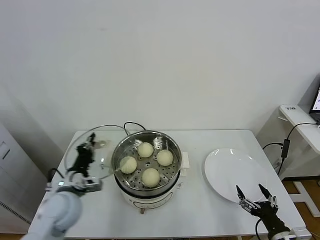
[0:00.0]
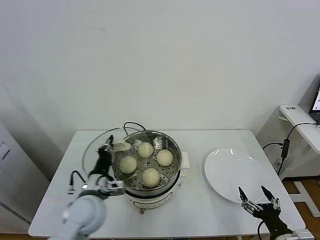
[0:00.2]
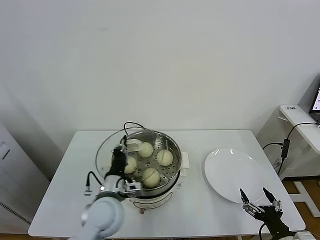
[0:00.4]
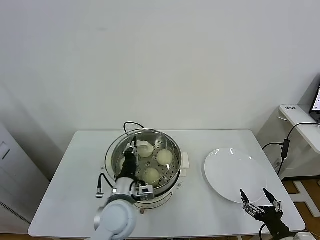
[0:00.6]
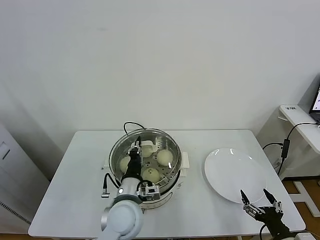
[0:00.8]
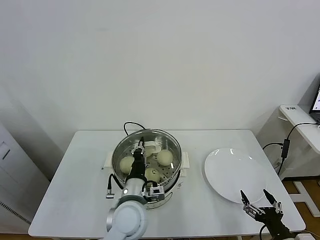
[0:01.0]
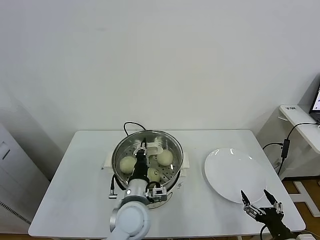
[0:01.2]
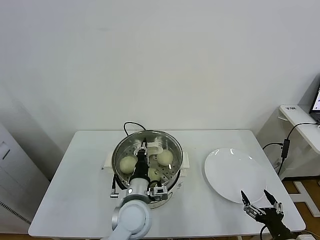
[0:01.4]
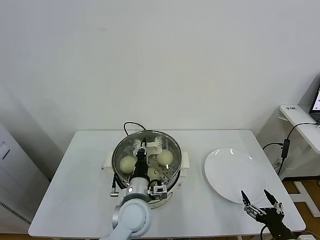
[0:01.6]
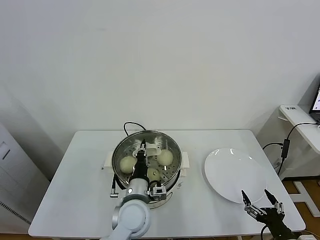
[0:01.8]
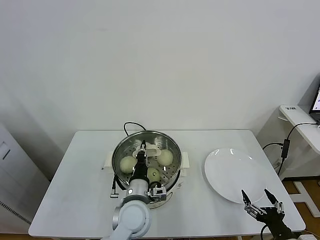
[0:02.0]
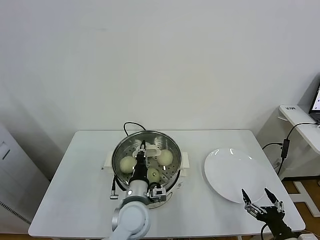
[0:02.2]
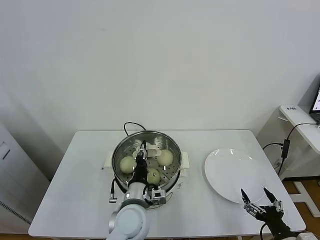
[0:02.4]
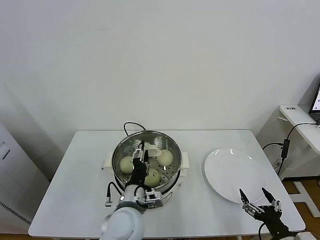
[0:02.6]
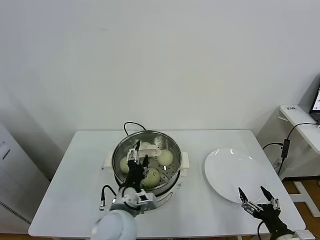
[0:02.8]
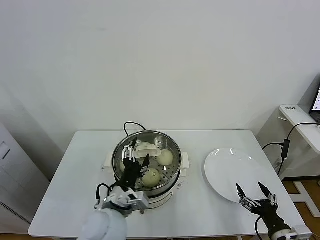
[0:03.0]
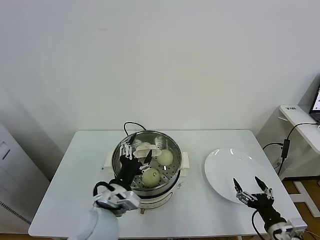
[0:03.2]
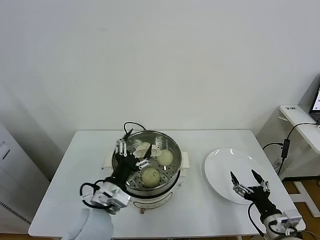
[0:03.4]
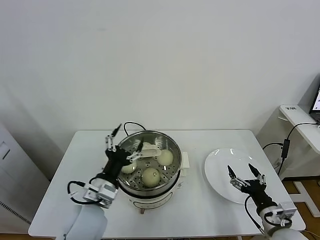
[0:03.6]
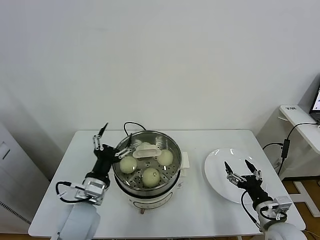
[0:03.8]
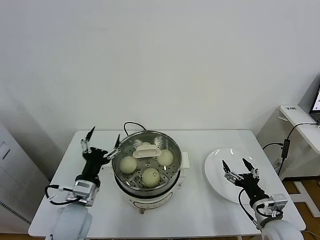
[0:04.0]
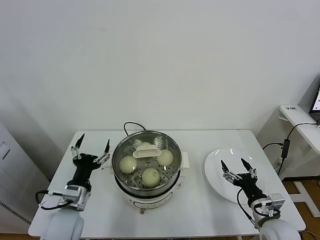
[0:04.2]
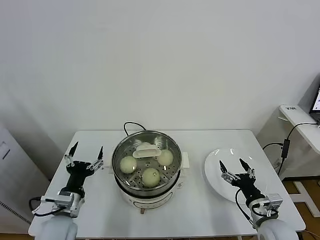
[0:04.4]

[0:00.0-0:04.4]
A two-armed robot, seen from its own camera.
Task of the whole recording: take steamed baozi put them in steamer.
Step, 0:00.0 to 0:03.0: Place the pot lid on the steamer with left gripper.
0:00.0 to 0:01.4: The left gripper heads to the right, covering some 20 cm.
0:01.4 to 0:03.0: The left gripper travels to the left by approximately 5 cm, and opens its fingers.
0:03.0 to 0:04.4: The right gripper travels forward by about 10 cm. Meanwhile the left gripper moves to the left, some 15 cm.
